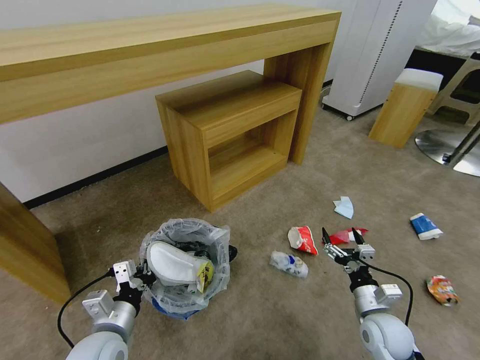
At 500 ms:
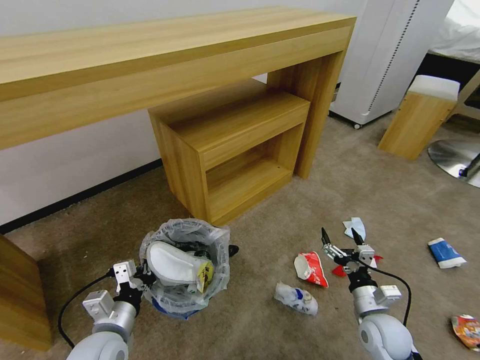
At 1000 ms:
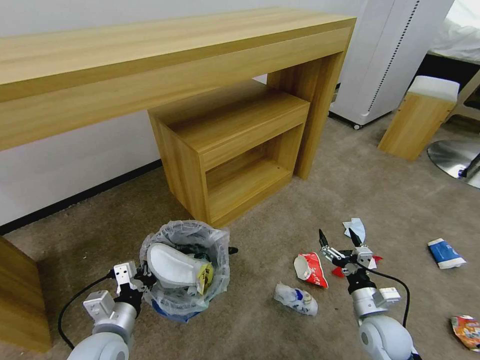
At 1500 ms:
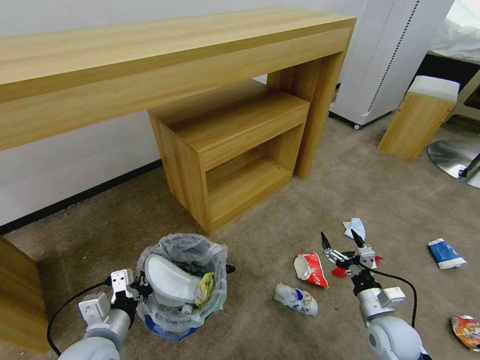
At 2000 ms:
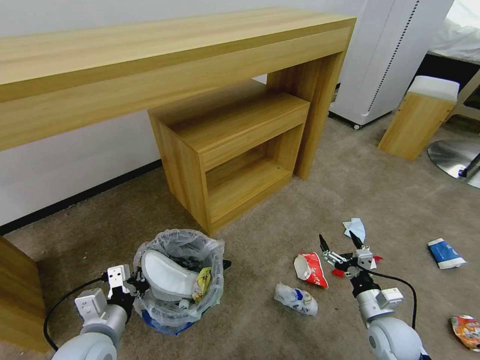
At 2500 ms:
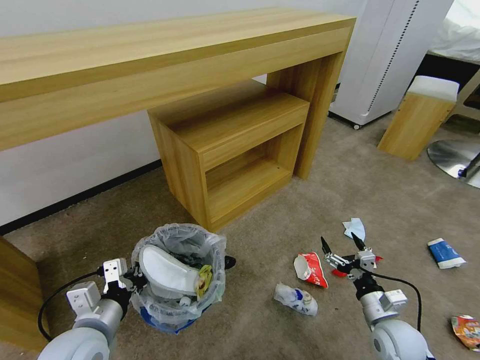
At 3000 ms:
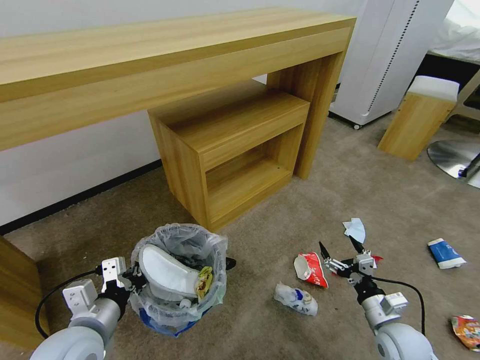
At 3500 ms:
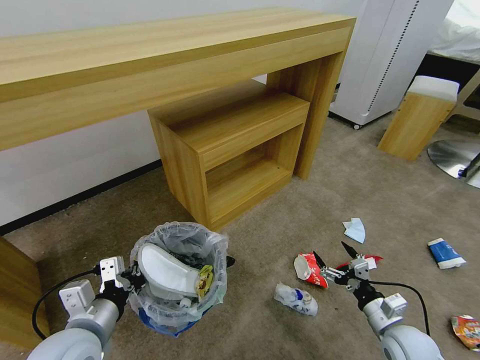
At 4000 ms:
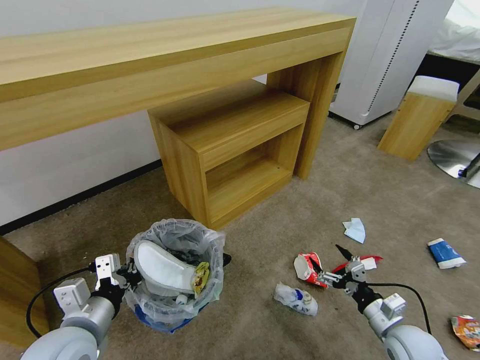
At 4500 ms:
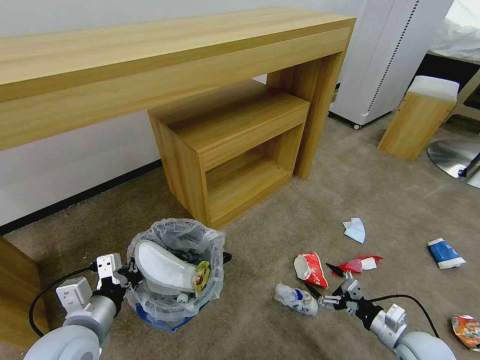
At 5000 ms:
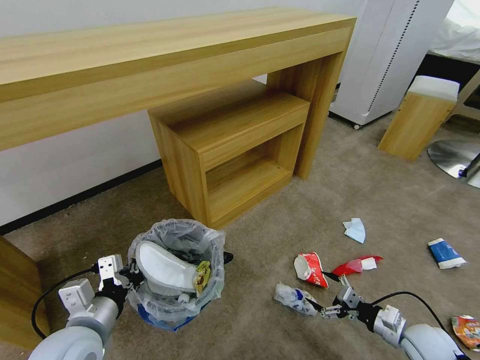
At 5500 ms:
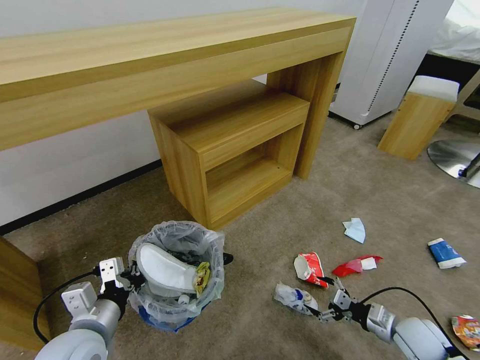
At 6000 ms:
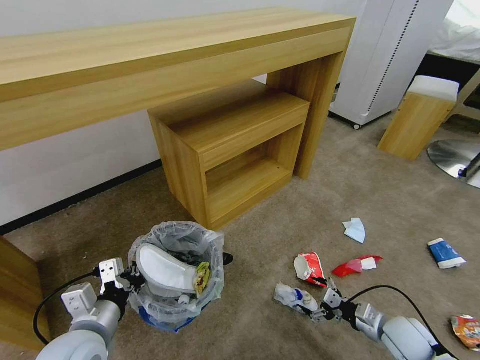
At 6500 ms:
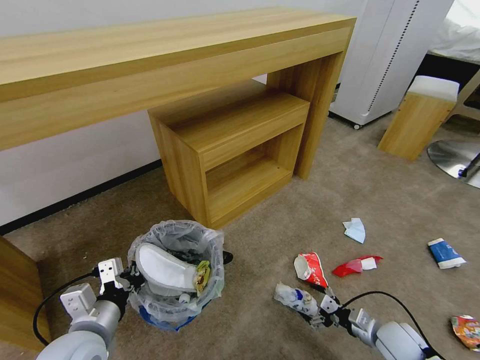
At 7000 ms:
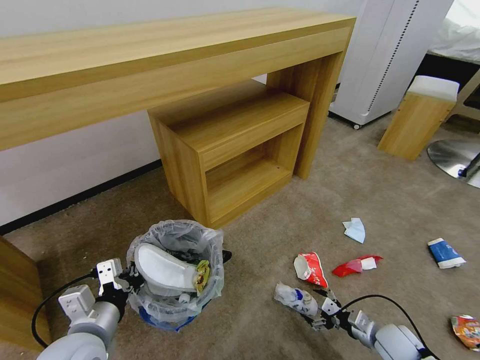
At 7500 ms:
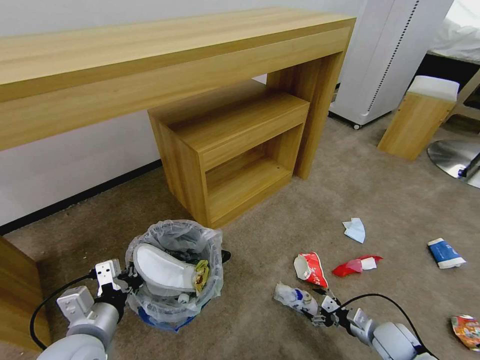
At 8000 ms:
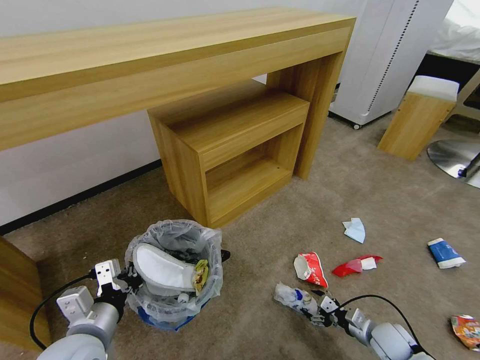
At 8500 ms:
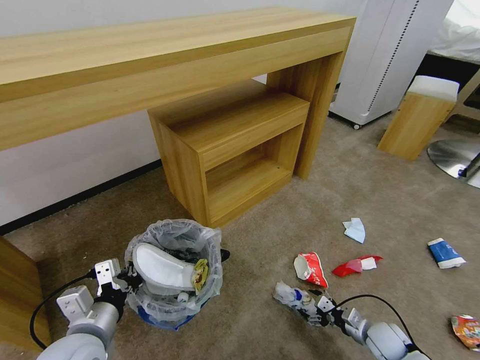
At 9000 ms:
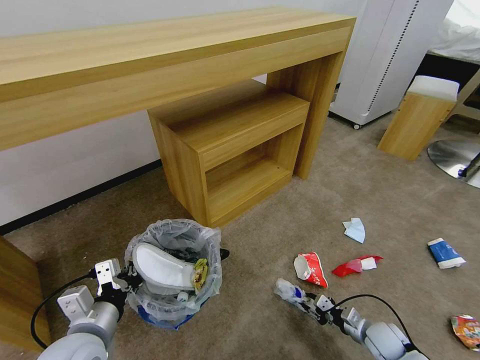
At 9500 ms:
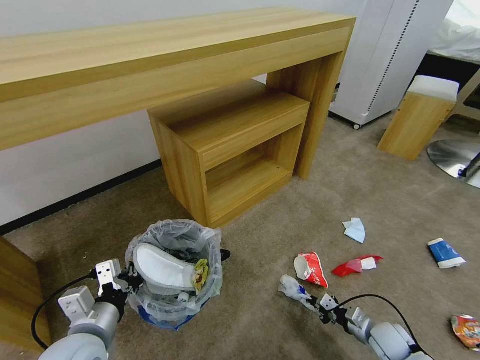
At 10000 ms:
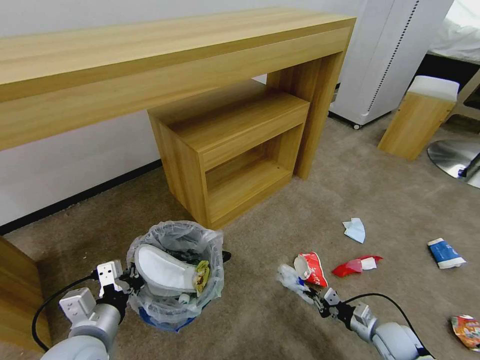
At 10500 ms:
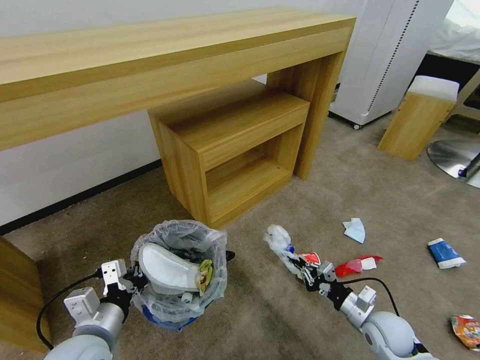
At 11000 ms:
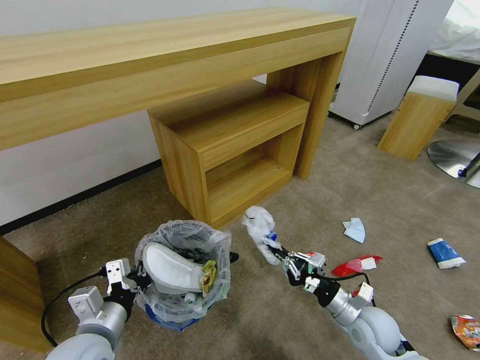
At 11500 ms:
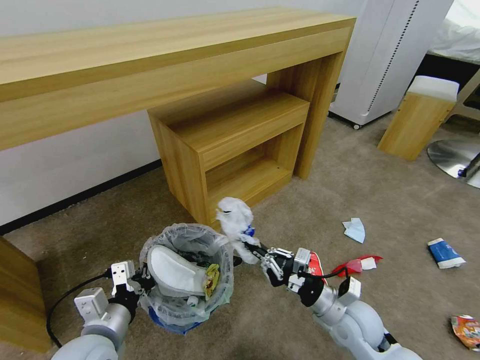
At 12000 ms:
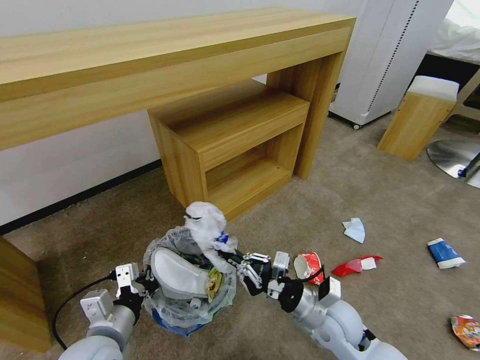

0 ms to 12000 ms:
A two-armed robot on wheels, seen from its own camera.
Task of the whole recording: Pick up the trash bin and place the garbage on the floor into it.
2000 ms to 4000 ms: The left gripper is displaced upward by roughly 5 cm.
6000 ms to 8000 ms: The right gripper travels downward by some 10 cm.
8000 ms to 10000 ms: The right gripper closes its fingers.
10000 ms to 12000 ms: The right gripper moves to the left and upward, roughly 25 cm.

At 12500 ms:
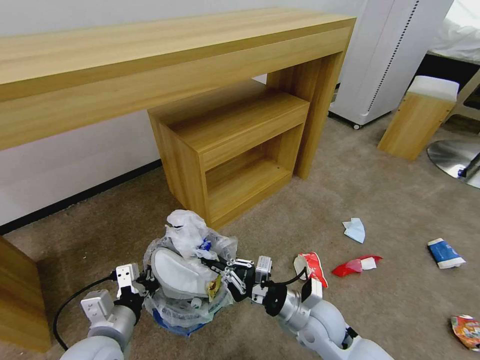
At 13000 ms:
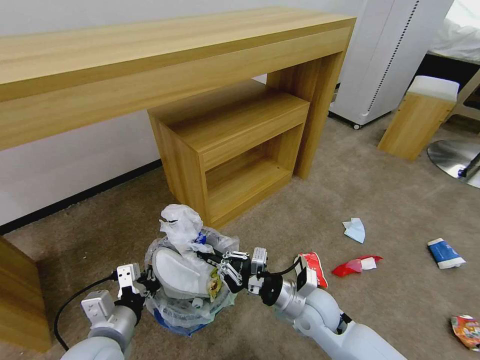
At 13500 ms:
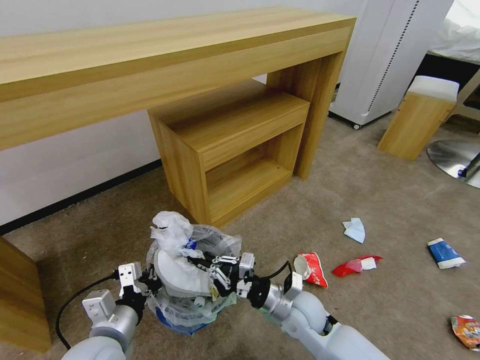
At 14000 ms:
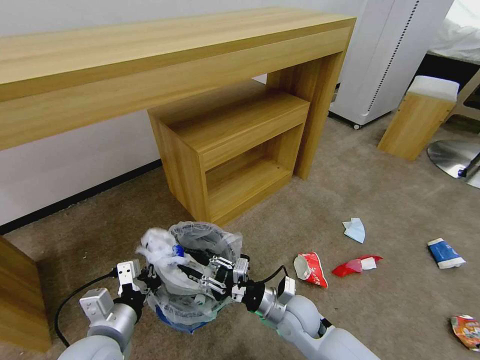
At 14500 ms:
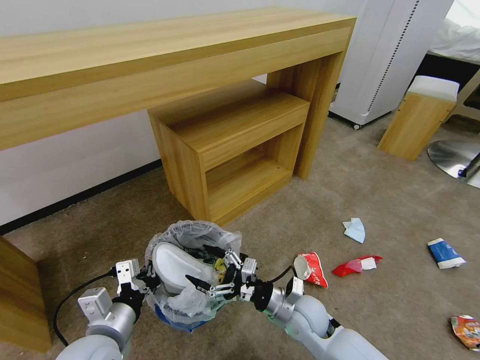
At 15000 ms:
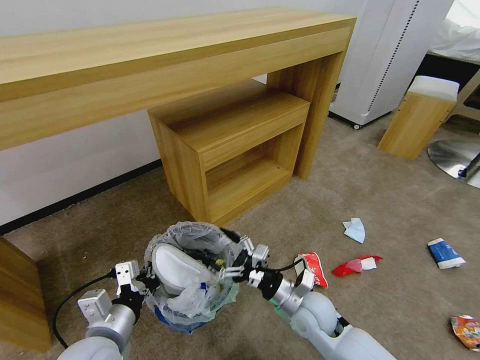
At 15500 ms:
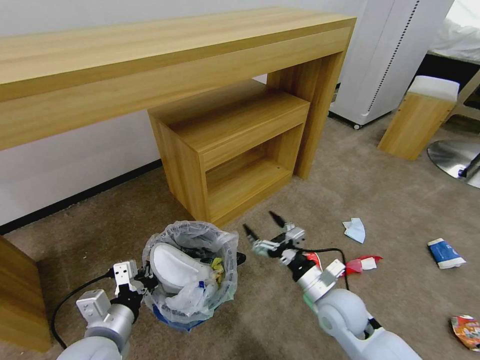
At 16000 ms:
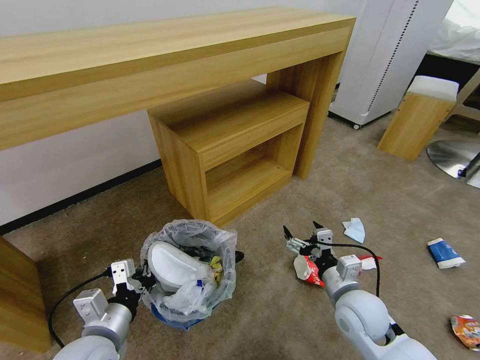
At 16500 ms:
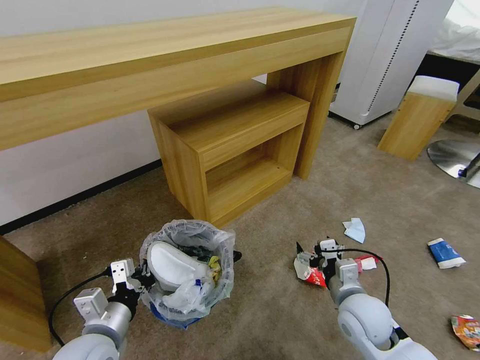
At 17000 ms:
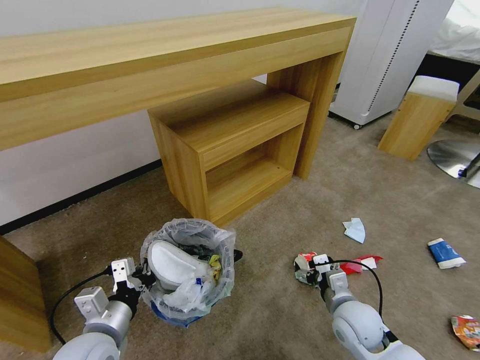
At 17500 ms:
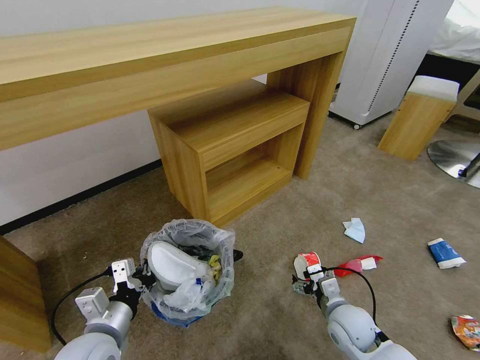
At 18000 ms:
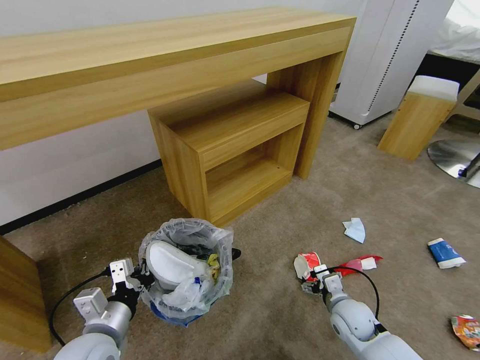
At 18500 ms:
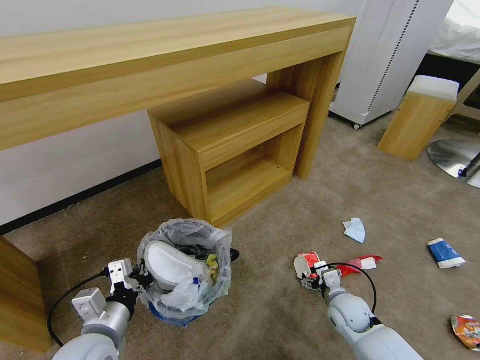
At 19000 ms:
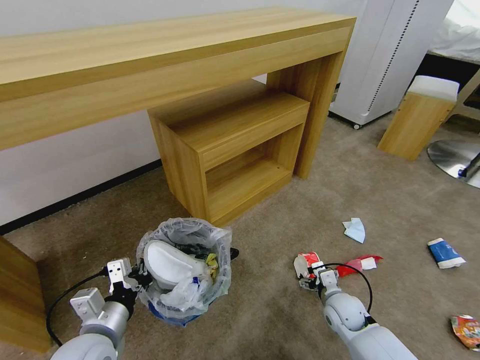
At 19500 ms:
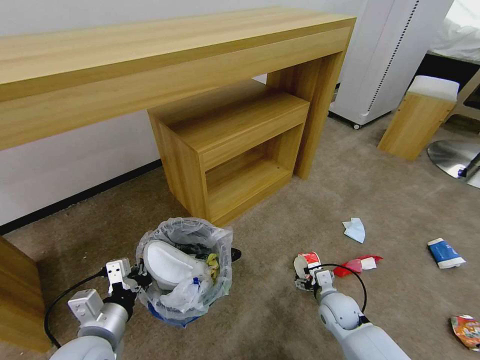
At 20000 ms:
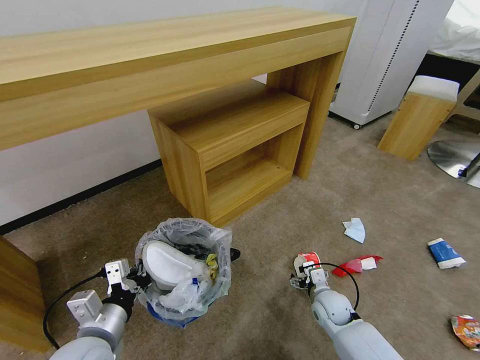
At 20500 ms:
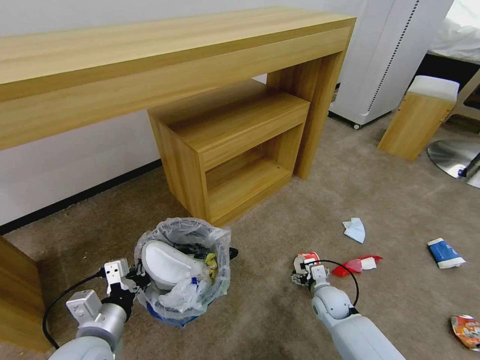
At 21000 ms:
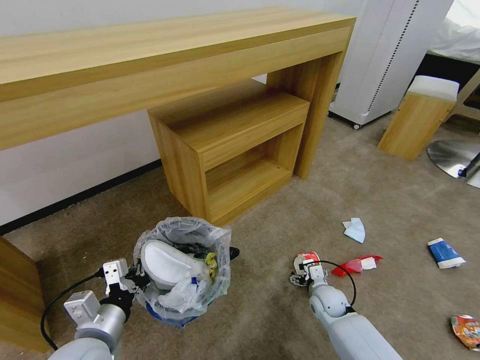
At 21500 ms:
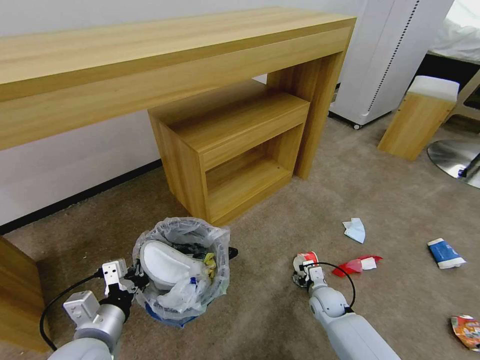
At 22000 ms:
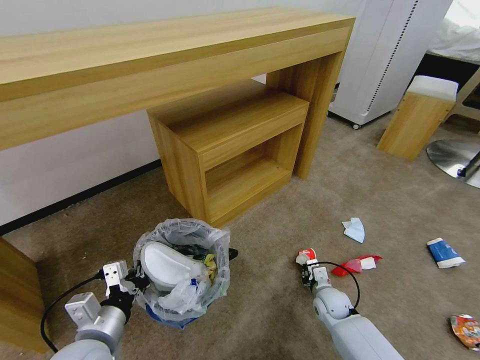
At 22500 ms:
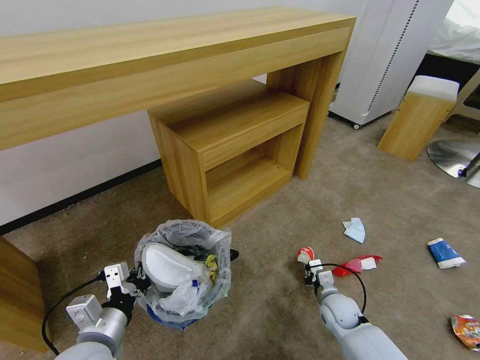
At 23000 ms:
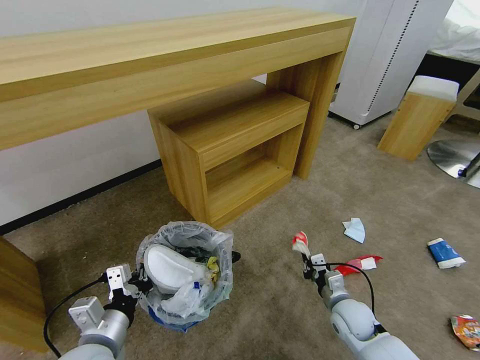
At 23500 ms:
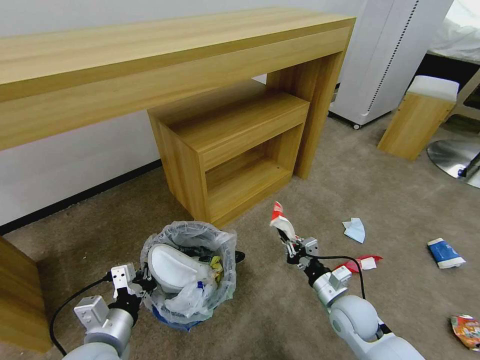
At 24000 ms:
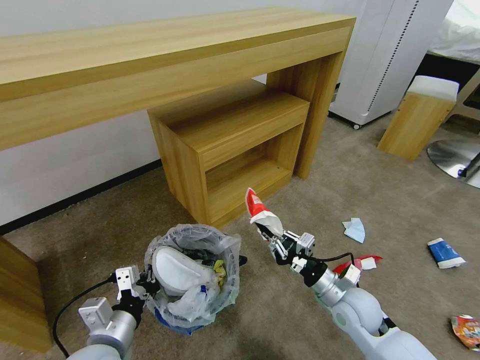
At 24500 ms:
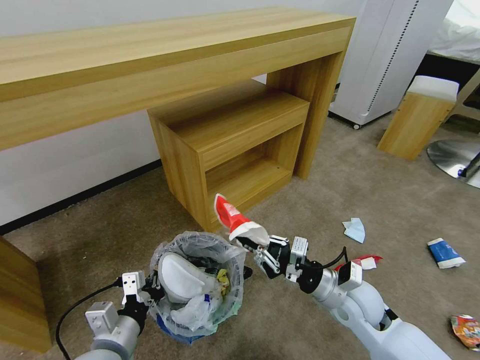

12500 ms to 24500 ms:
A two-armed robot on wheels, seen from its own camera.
Task of the whole recording: Pick up the trash bin and place the garbage on the floor into it.
12500 ms to 14500 ms: The right gripper opens its fingers.
14500 ms to 16500 ms: The right gripper is displaced to the right and upward by approximately 10 cm.
16500 ms to 18500 ms: The right gripper is displaced downward by some 10 cm.
18500 ms to 20500 ms: The right gripper moves some 5 cm.
20500 ms to 22500 ms: The right gripper closes its fingers.
22500 ms to 24500 ms: The right gripper shifts roughly 15 cm upward.

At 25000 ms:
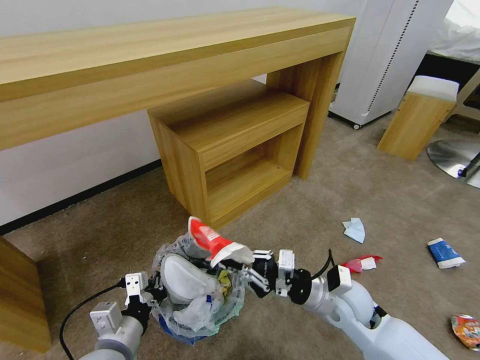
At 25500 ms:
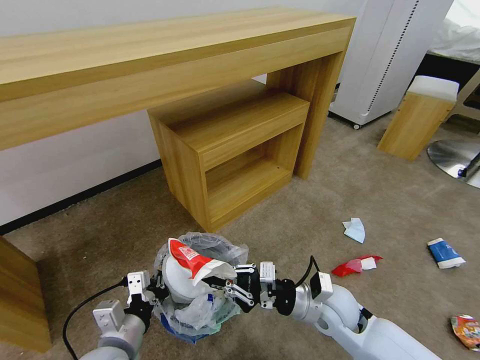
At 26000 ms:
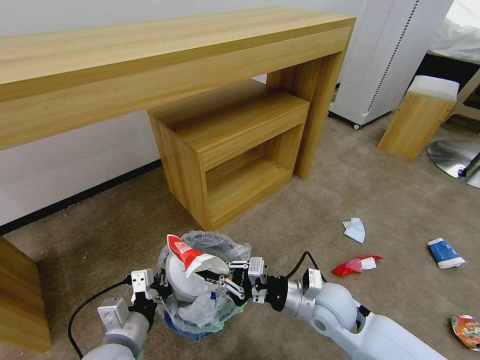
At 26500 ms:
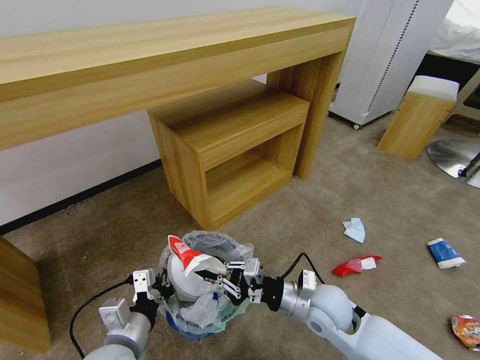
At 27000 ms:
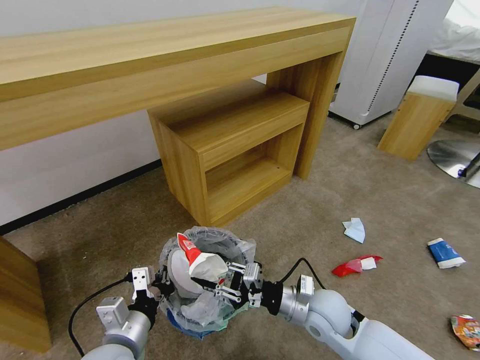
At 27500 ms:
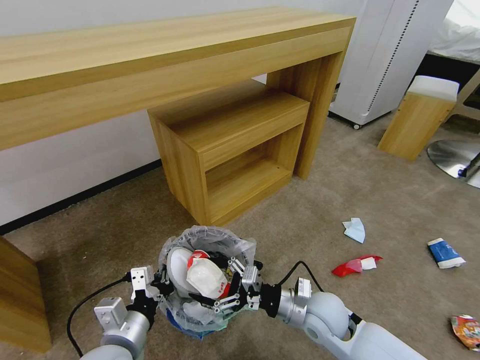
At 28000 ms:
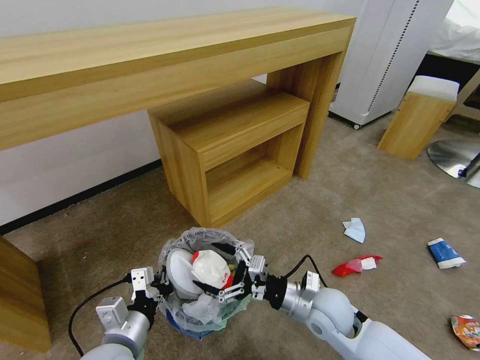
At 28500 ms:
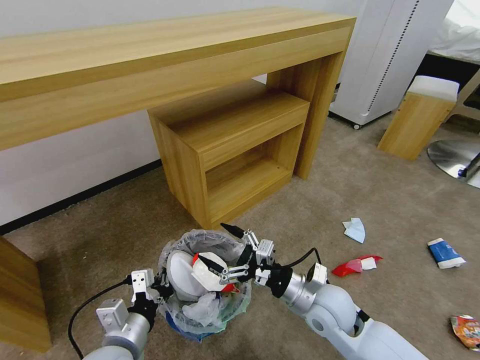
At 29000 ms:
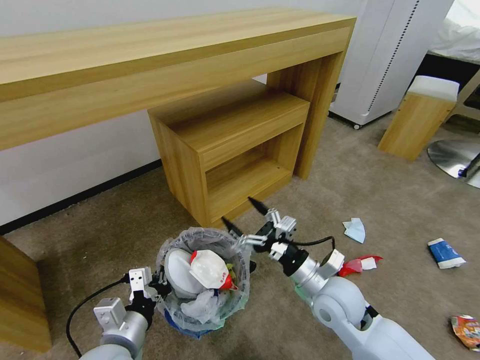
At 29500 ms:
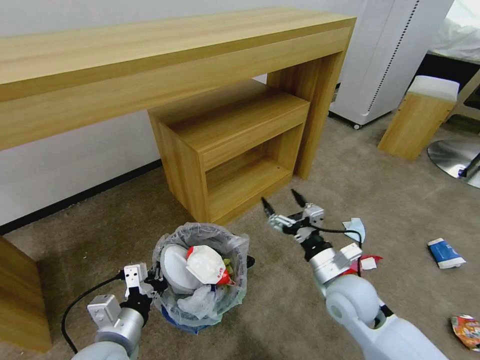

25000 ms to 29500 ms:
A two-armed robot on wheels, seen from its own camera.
Task of the whole recording: Pick up the trash bin and place the garbage on the floor into it.
25000 ms to 27000 ms: The right gripper shifts by approximately 5 cm.
27000 ms to 29500 ms: The right gripper changes place by roughly 5 cm, and opens its fingers.
